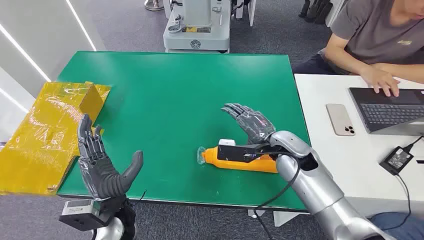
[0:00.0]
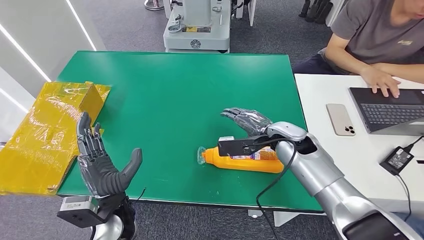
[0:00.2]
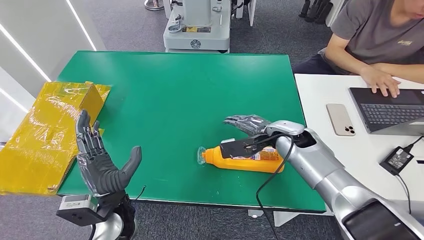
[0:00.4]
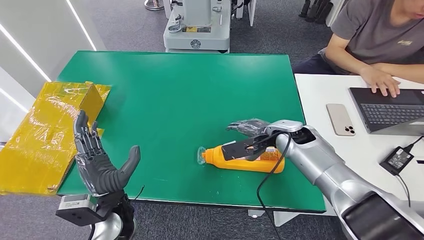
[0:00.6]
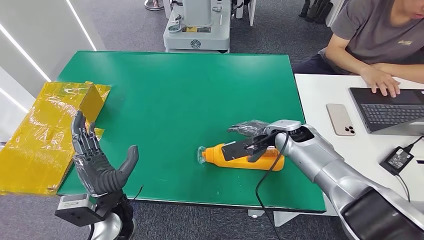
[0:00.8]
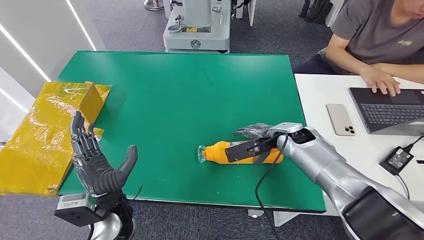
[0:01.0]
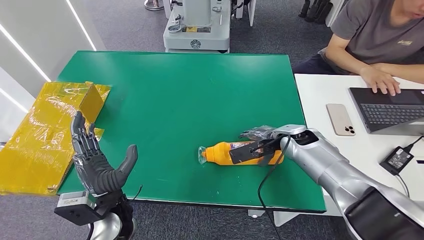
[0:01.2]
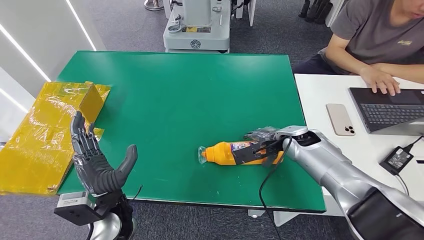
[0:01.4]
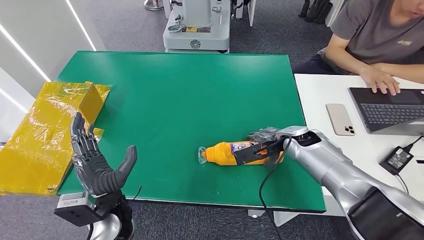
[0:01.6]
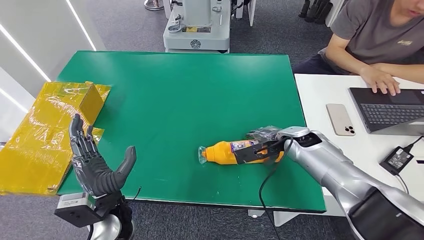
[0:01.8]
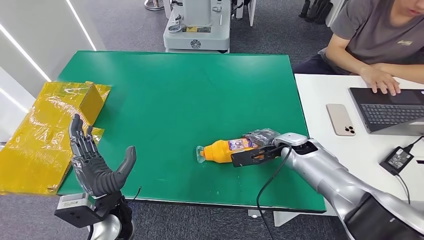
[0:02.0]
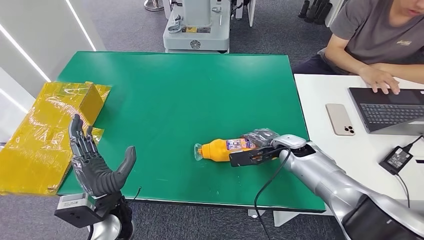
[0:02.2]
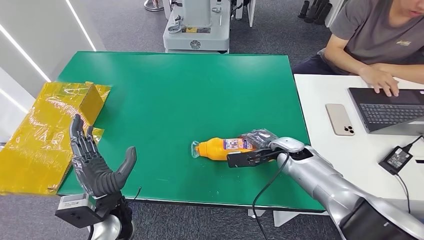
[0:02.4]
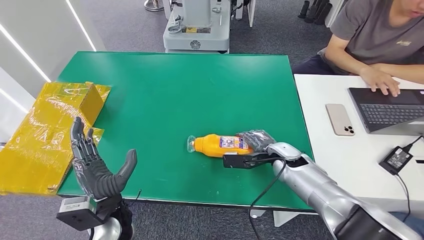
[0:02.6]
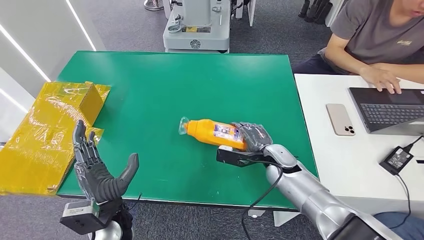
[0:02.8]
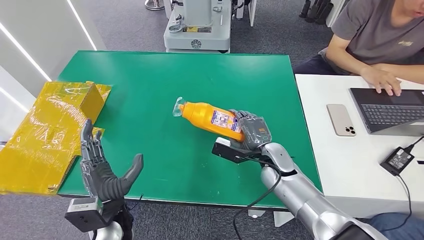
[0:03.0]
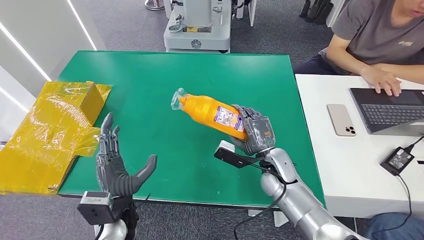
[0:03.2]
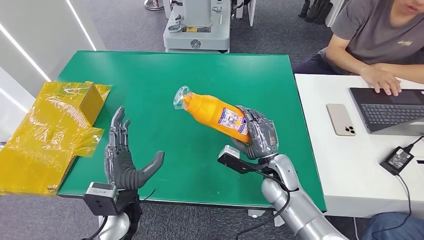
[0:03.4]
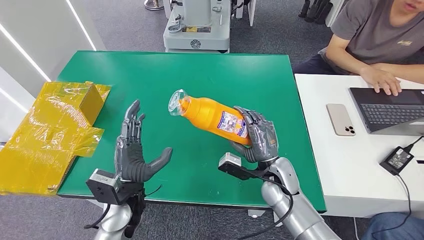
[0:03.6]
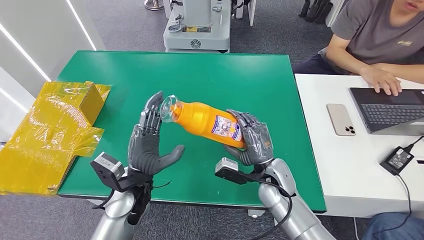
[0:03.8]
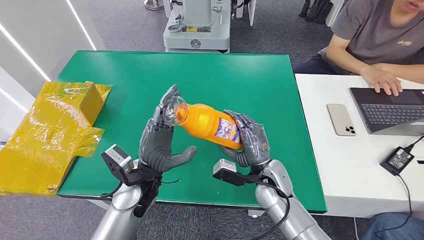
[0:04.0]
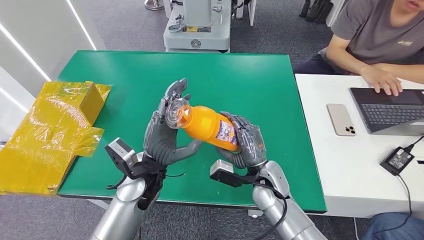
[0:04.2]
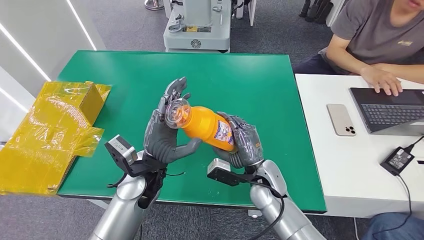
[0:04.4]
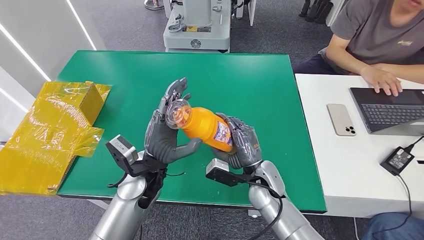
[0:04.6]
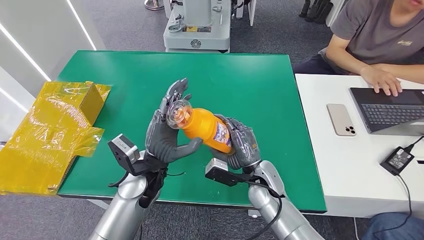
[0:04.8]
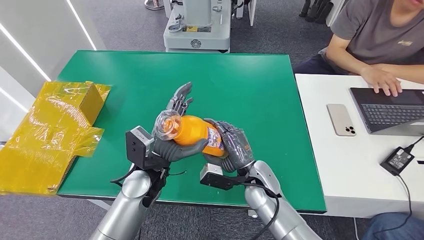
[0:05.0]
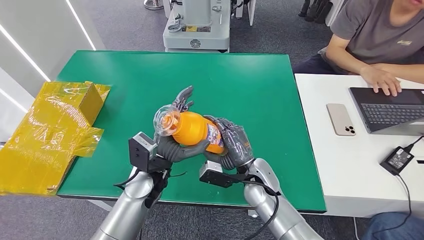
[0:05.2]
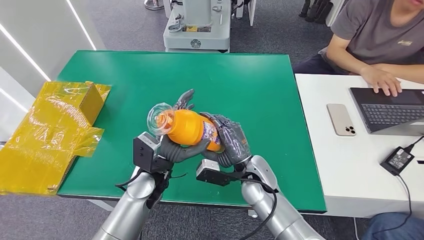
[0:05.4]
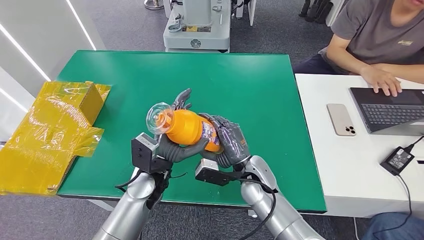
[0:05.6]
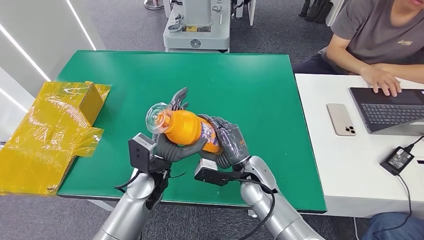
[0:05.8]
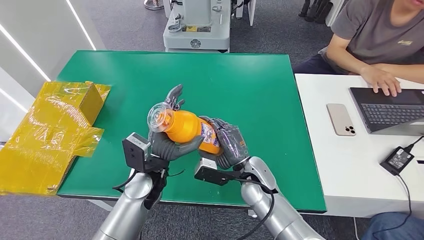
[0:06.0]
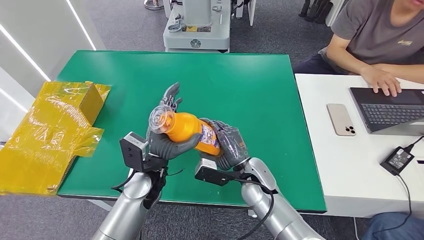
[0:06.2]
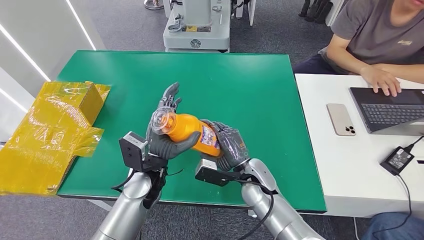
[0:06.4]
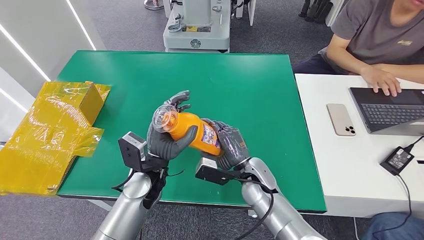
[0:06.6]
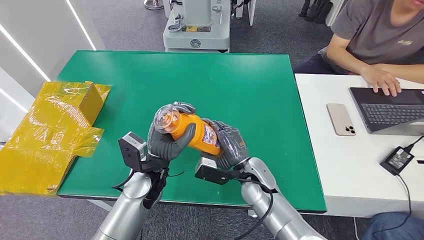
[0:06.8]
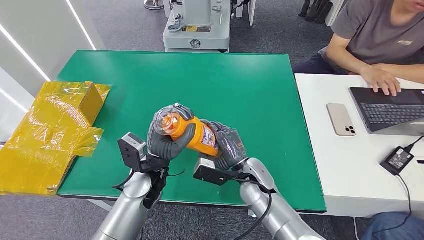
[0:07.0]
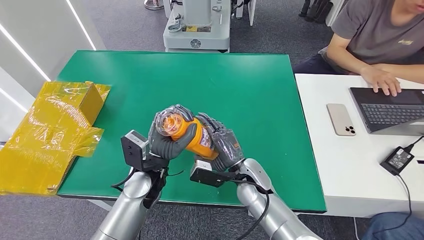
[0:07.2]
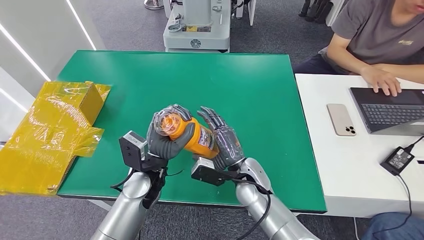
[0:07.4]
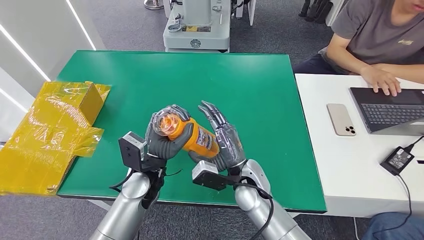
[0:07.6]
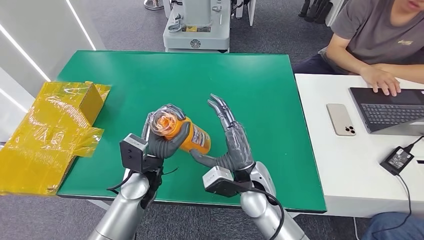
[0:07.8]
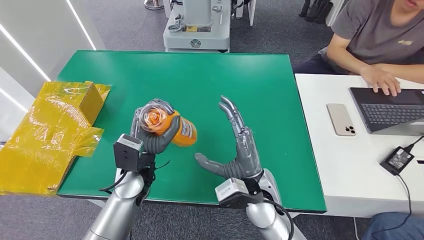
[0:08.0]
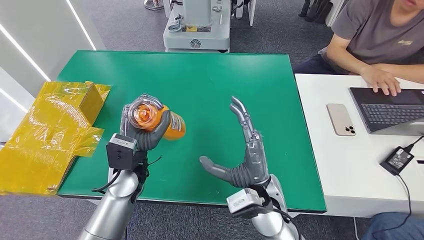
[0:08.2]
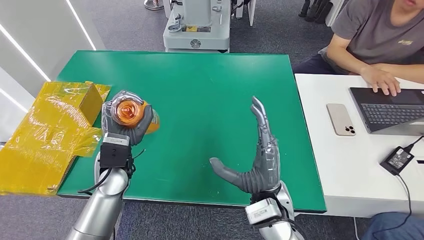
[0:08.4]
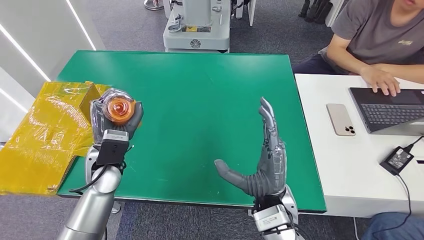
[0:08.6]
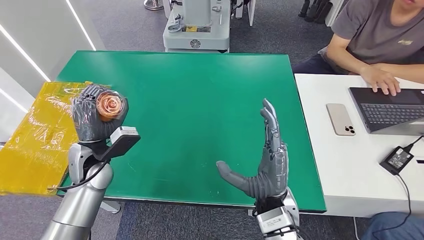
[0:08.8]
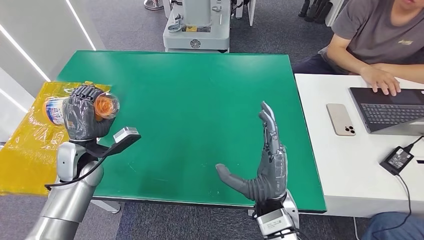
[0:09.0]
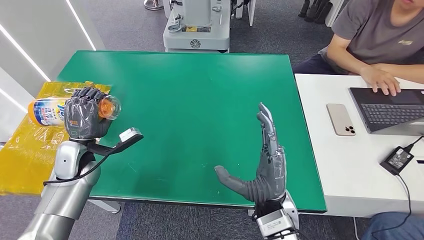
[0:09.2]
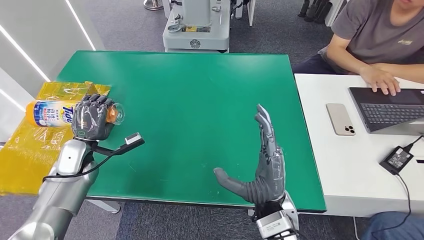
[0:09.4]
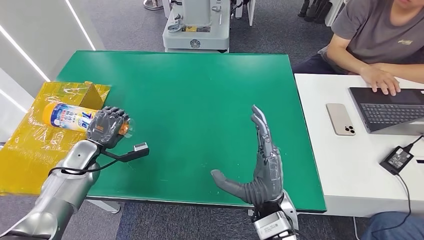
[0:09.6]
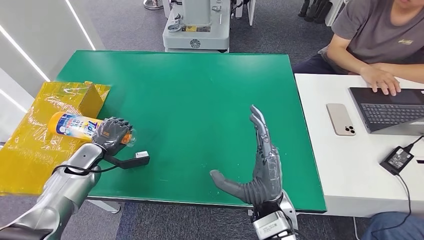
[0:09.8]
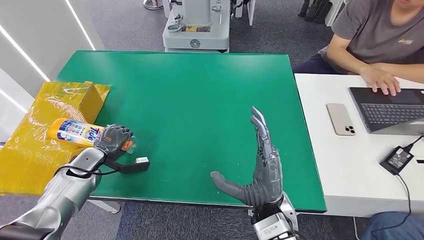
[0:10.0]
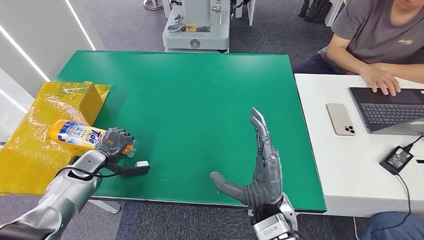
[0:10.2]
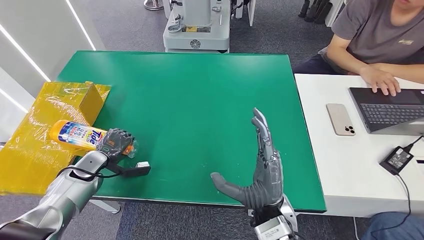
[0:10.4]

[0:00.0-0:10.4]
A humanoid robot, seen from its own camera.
Step, 0:00.0 to 0:03.6: Pick up the bottle from the table.
0:01.4 to 0:03.0: The right hand travels to the left, downward and backward by about 10 cm.
0:03.0 to 0:04.4: The right hand heads backward and to the left, covering some 5 cm; the left hand travels forward, to the right and upward by some 10 cm.
0:04.4 to 0:07.4: The hands stay close to where they were, moving slightly.
0:07.4 to 0:09.0: The left hand is displaced to the left by approximately 20 cm. Meanwhile the right hand heads backward and upward, covering approximately 10 cm.
0:09.0 to 0:10.4: The left hand moves downward and to the left, some 10 cm.

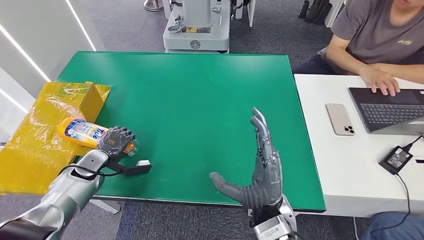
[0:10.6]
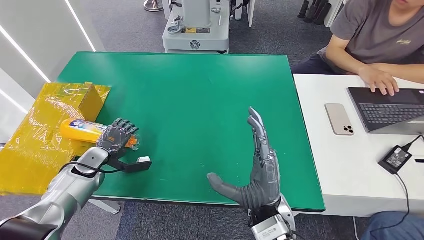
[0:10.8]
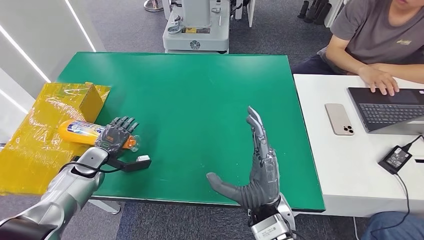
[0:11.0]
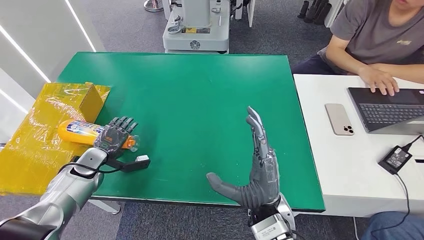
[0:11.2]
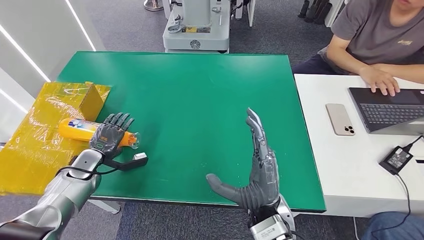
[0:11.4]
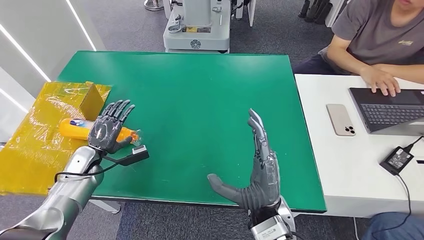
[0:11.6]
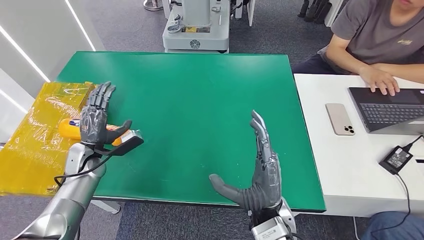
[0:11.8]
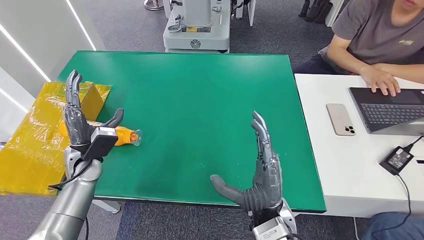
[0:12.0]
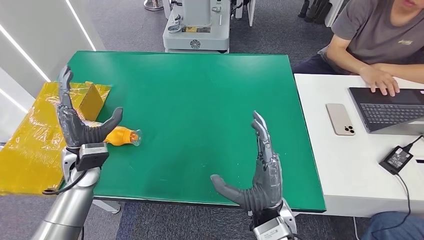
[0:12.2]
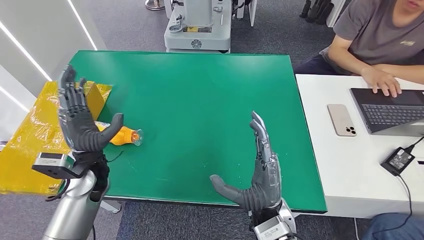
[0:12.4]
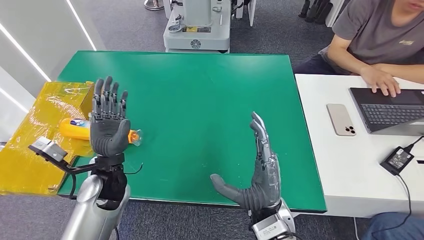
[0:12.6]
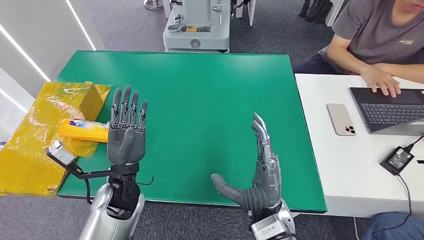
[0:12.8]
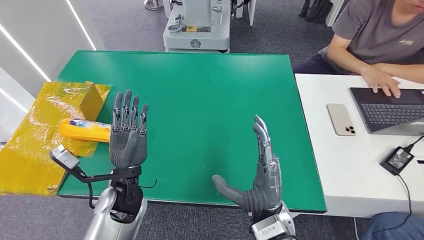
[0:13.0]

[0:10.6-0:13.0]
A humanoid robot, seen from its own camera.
Step, 0:10.6 to 0:13.0: Turn the bottle to the front side.
0:11.8 to 0:13.0: The left hand moves to the right and backward, some 20 cm.
